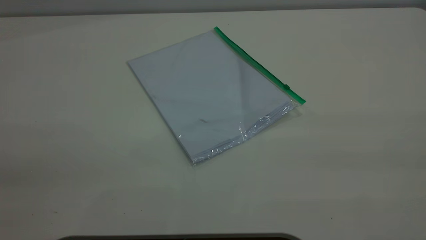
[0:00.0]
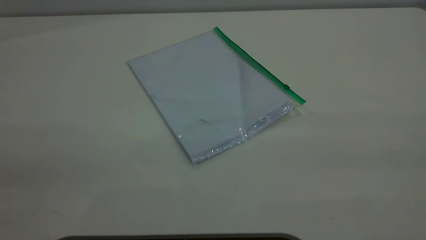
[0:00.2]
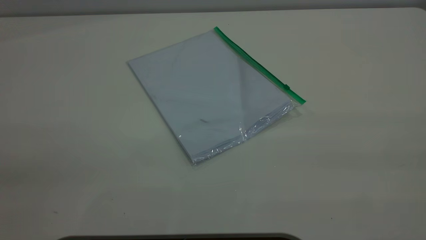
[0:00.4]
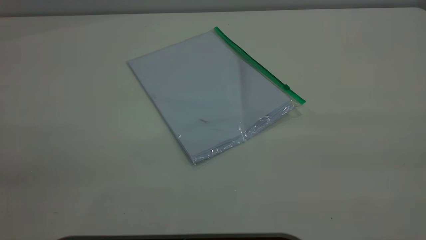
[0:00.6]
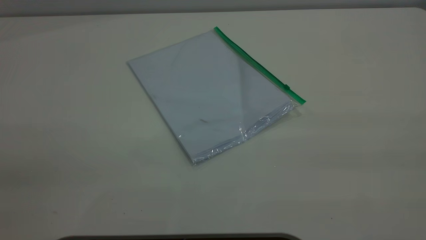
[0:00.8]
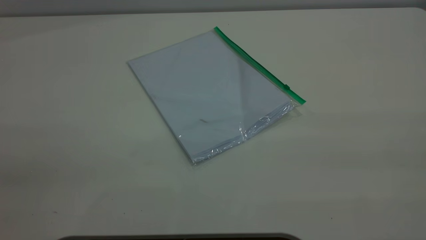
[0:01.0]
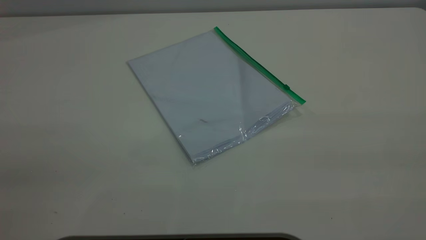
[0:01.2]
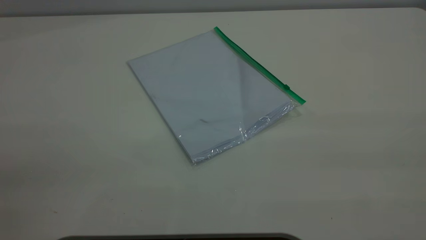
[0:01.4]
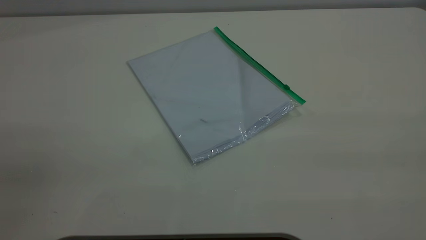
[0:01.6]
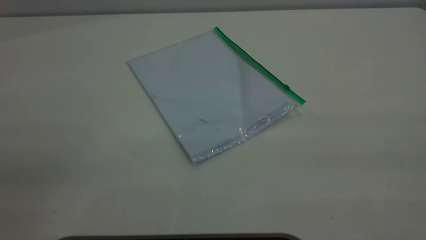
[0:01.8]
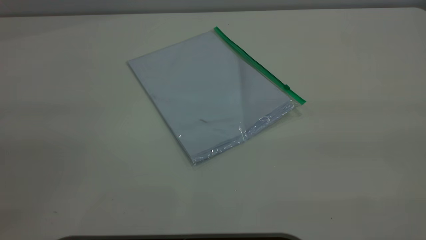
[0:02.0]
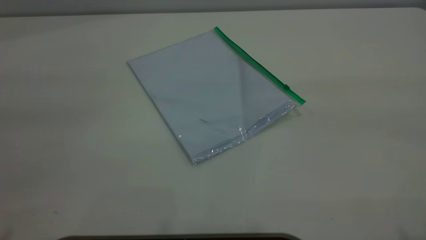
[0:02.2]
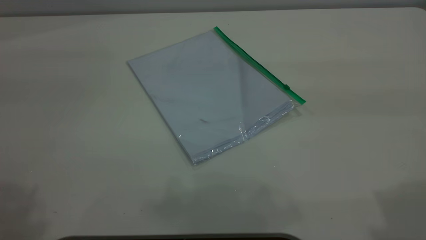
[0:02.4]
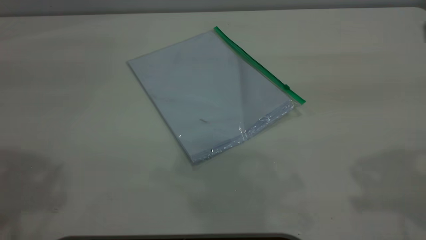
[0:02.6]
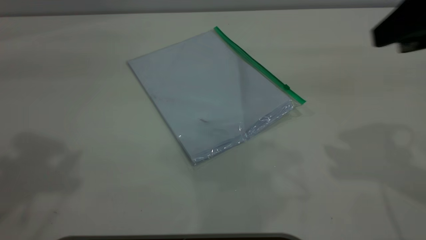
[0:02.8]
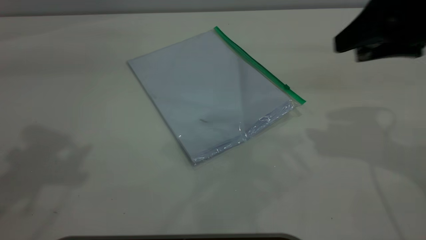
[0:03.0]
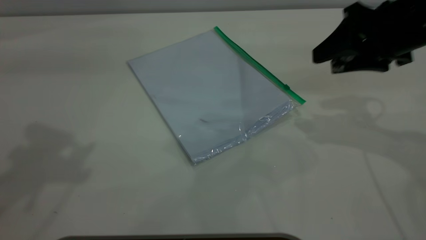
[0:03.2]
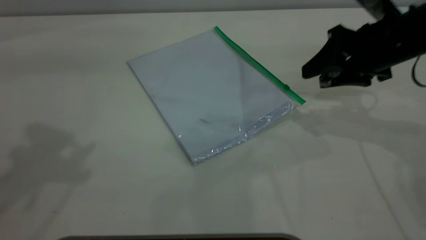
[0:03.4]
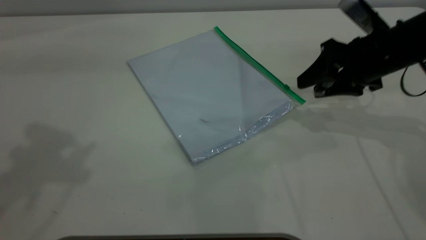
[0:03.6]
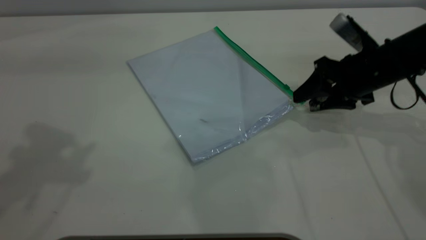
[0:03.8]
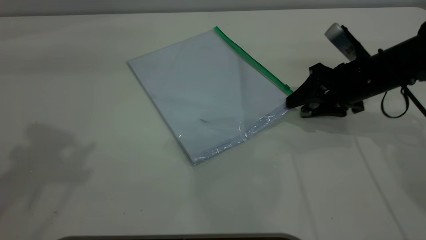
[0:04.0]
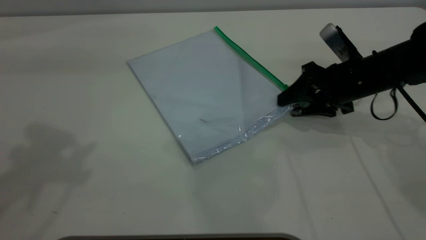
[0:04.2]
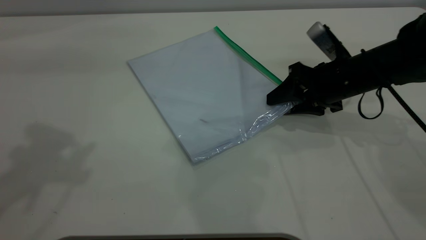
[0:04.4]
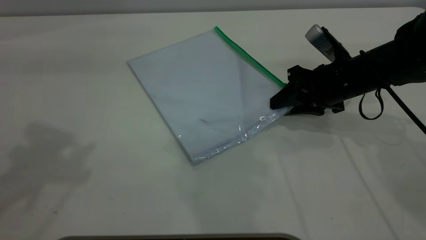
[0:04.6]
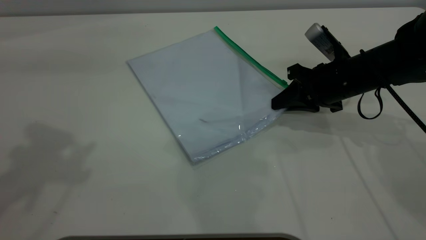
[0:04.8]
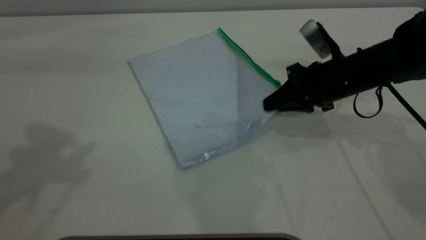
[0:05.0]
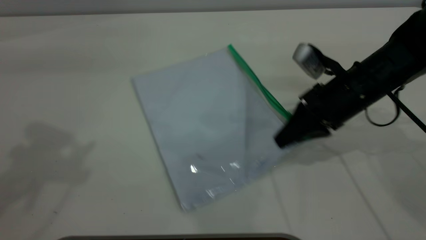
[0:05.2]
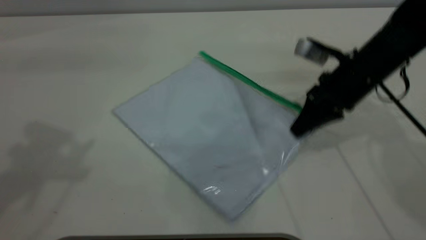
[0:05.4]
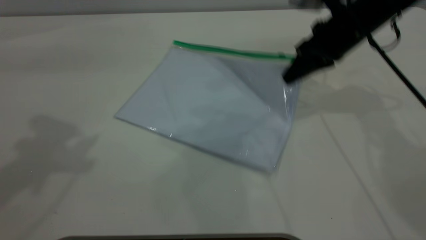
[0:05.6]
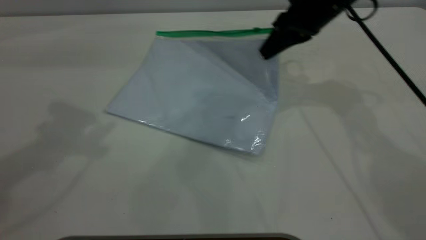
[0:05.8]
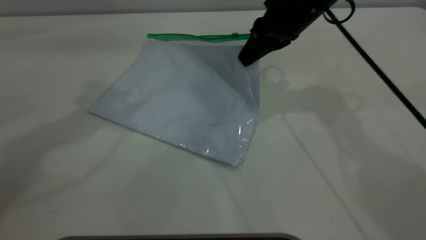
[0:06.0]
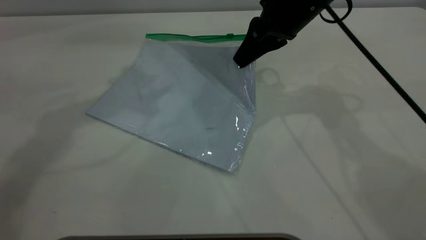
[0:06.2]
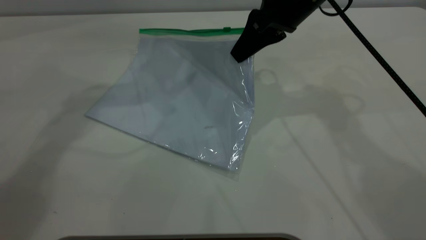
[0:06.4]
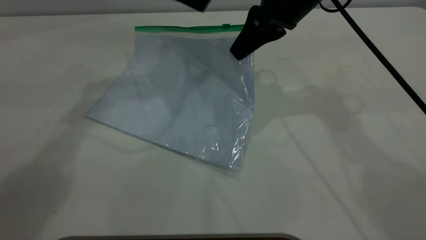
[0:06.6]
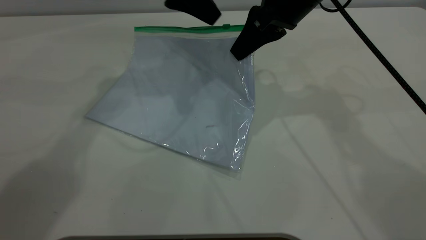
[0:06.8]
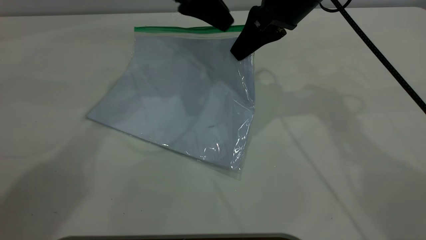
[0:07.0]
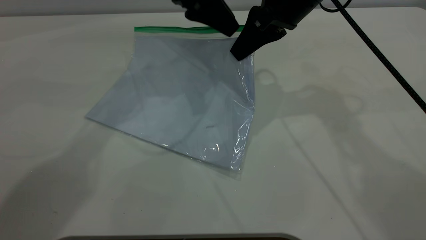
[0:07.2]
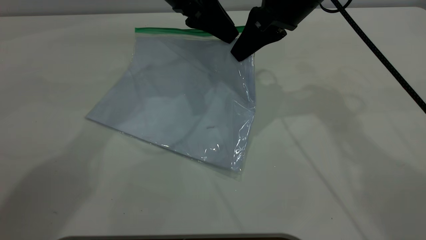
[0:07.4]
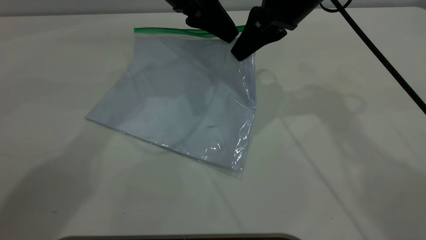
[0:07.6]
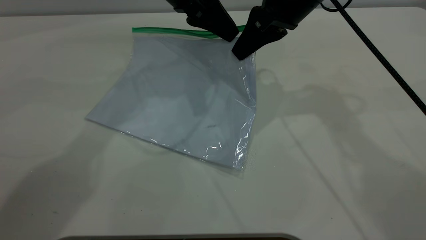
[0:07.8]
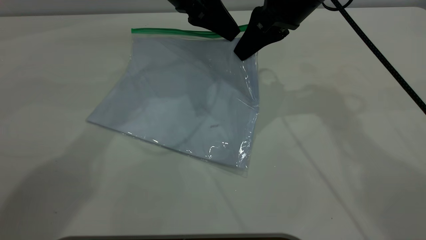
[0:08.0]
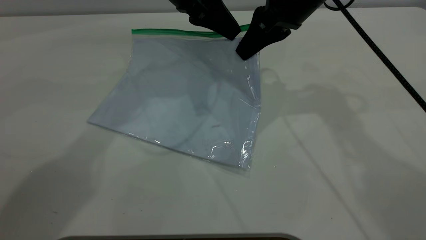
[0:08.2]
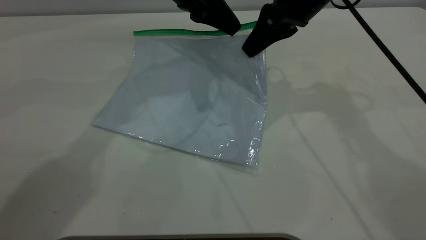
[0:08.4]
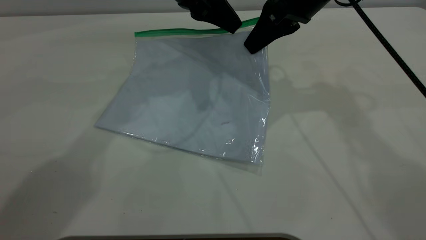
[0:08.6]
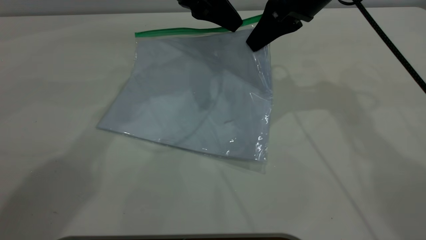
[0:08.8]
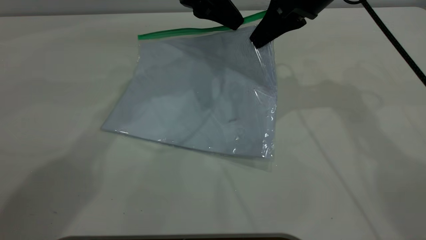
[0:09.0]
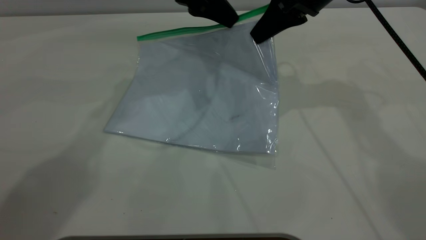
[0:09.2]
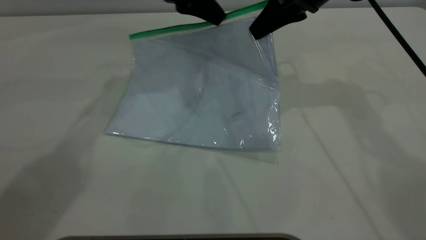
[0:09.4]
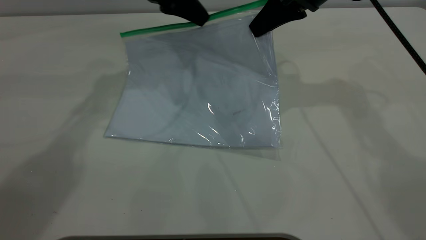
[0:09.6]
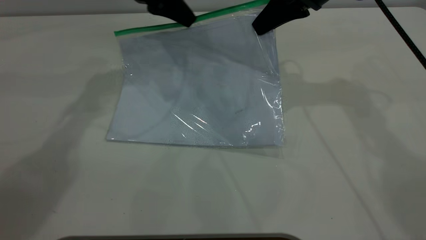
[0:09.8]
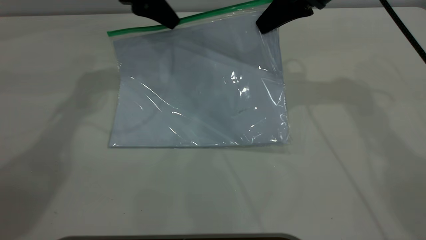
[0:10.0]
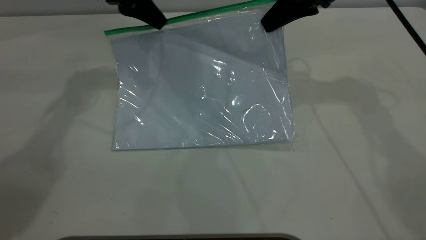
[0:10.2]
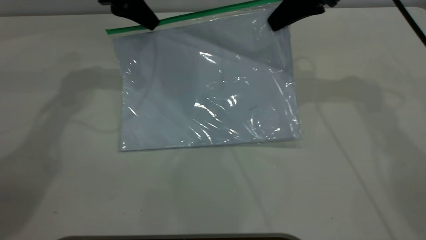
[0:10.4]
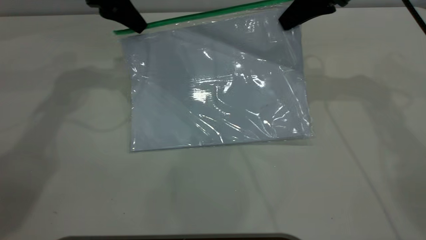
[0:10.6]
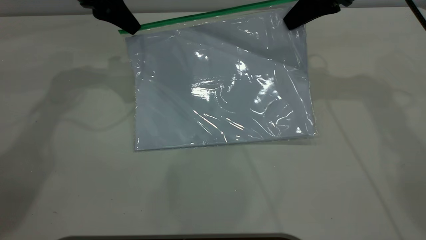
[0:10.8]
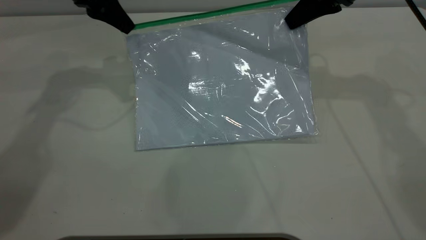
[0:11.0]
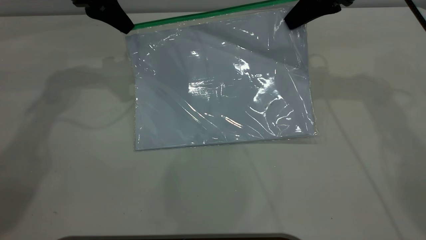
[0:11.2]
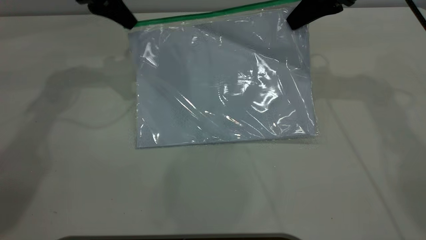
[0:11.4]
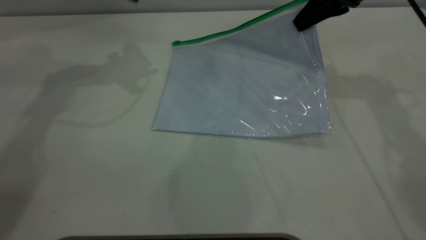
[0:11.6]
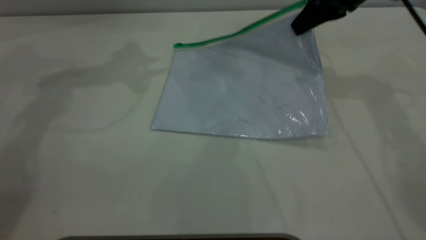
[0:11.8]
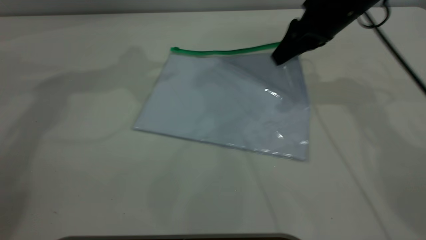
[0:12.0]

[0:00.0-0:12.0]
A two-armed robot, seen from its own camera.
Step, 0:00.0 to 0:06.4: Pick up the transparent plastic bag with the right gripper.
Step, 0:06.6 to 0:11.4: Pulling up the zipper on the transparent plastic bag with the left gripper to close it.
0:00.0 to 0:01.6: Neither gripper changes place.
0:01.6 to 0:03.0: The right gripper travels forward and downward by some 35 cm.
0:03.0 to 0:04.4: The right gripper heads downward and forward, covering about 15 cm.
0:04.4 to 0:06.0: The left gripper moves forward and to the right, some 10 cm, while the right gripper travels upward and to the left by some 15 cm, and closes up.
0:06.0 to 0:07.6: The left gripper is displaced to the right, downward and forward by roughly 20 cm, and closes its fingers.
0:07.6 to 0:09.0: The left gripper closes its fingers.
0:09.0 to 0:10.4: The left gripper goes some 15 cm to the left.
0:10.4 to 0:12.0: The left gripper goes about 15 cm upward, and opens its fingers; the right gripper shifts roughly 5 cm downward, and opens its fingers.

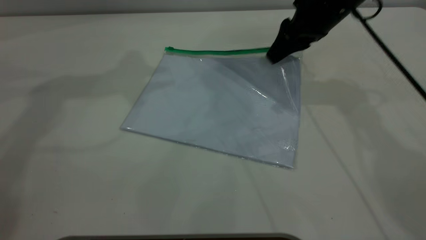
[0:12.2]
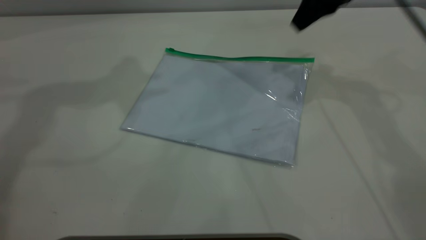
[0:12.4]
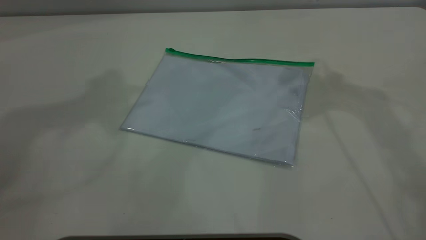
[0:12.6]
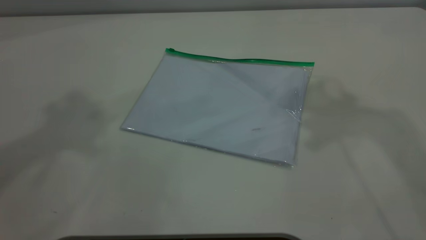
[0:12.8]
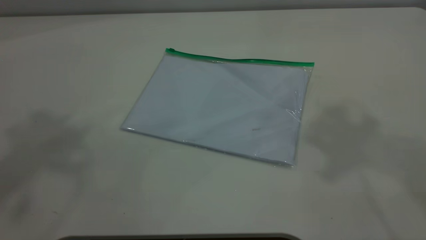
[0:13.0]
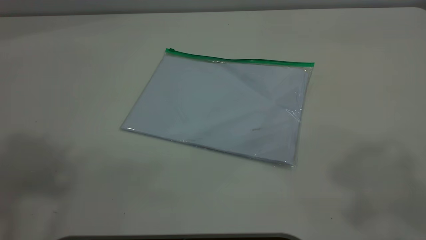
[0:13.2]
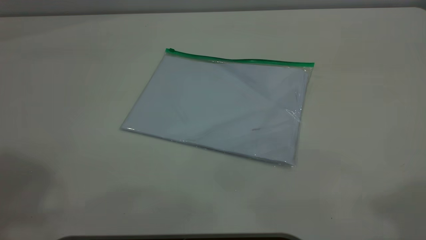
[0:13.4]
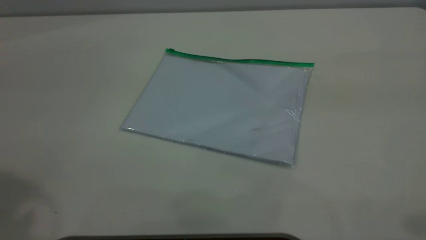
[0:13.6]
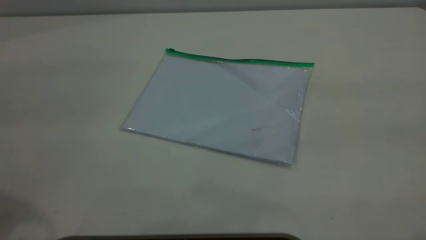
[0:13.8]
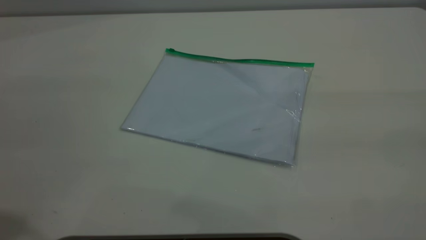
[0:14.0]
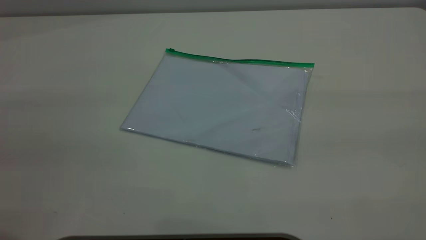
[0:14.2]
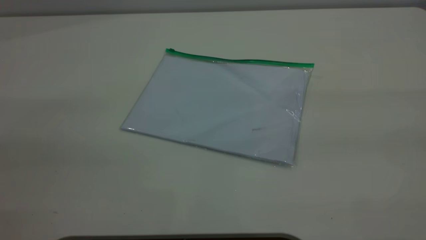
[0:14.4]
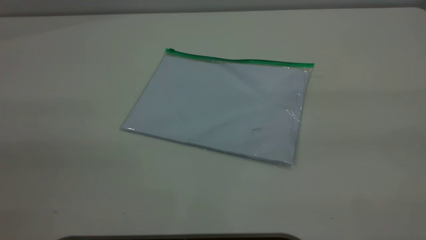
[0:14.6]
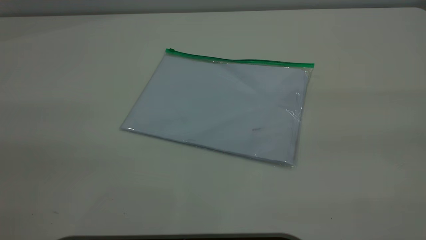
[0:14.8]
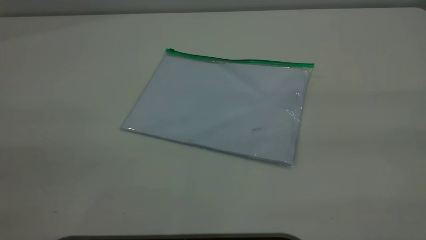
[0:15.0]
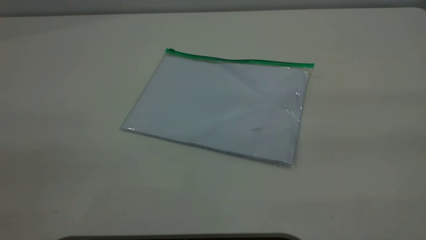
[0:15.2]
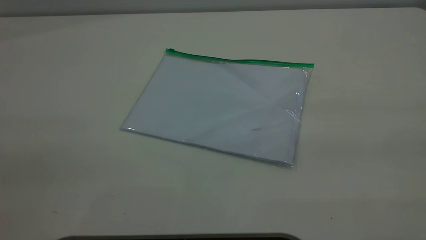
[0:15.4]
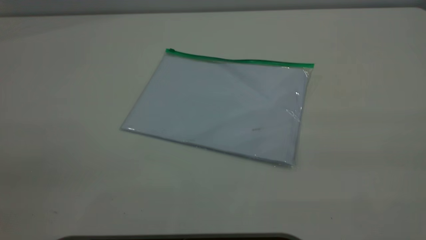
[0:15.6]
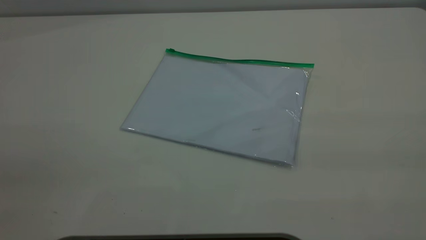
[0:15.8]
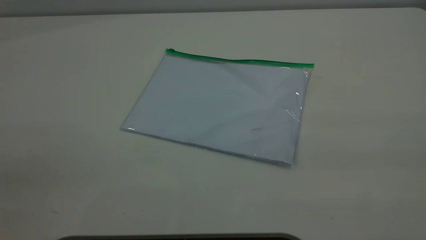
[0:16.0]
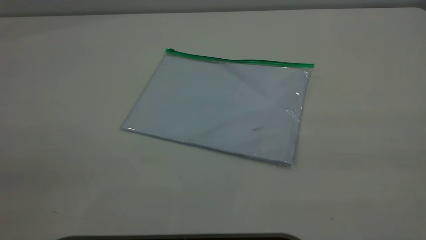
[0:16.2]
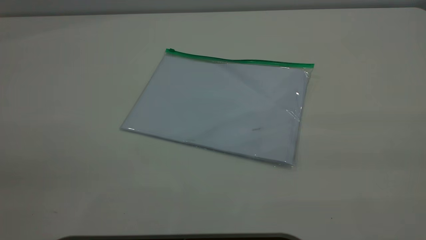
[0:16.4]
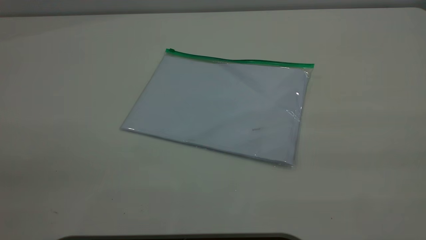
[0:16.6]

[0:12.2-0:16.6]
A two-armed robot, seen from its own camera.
Step, 0:12.2 to 0:13.2: Place the transparent plastic bag.
0:12.2 to 0:13.6: The left gripper shifts some 25 cm backward, while the right gripper heads backward and upward, covering some 40 cm.
